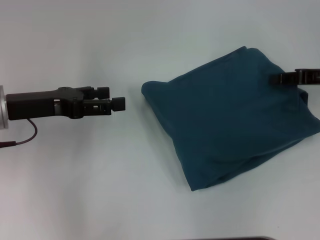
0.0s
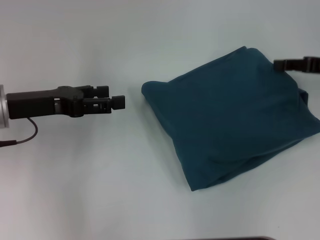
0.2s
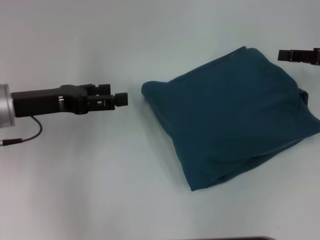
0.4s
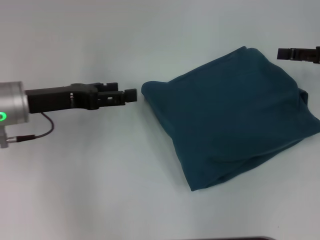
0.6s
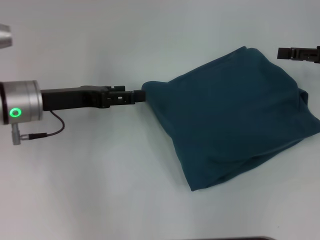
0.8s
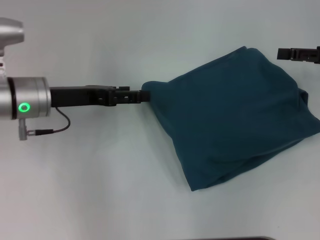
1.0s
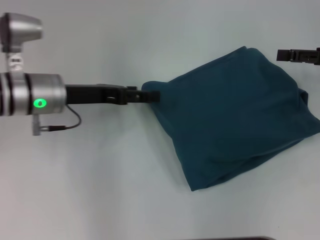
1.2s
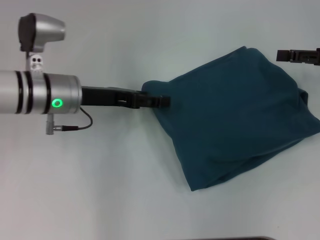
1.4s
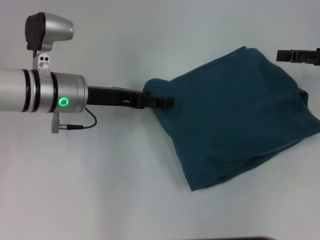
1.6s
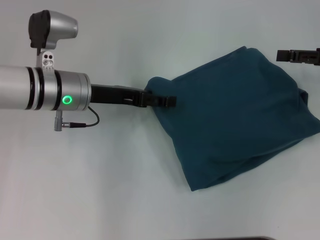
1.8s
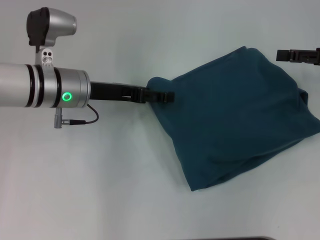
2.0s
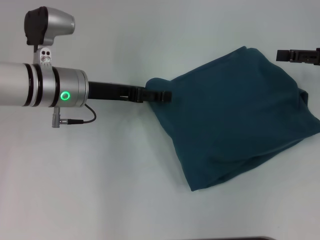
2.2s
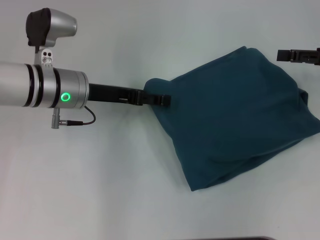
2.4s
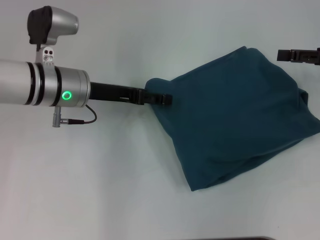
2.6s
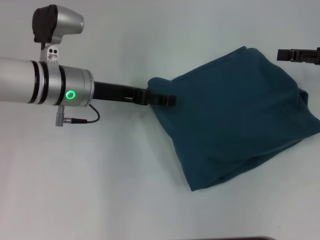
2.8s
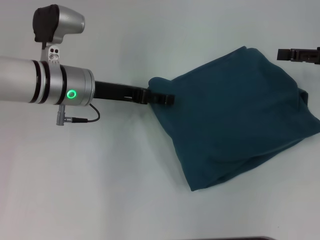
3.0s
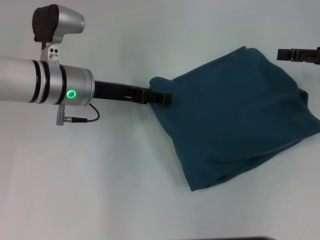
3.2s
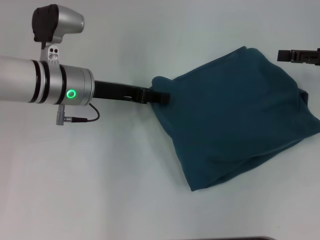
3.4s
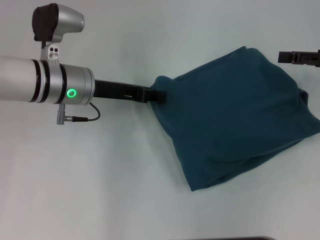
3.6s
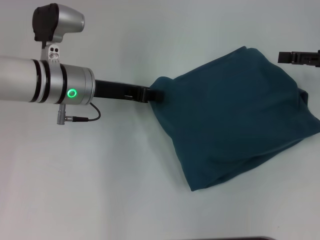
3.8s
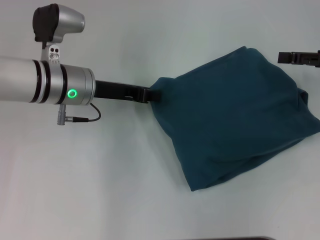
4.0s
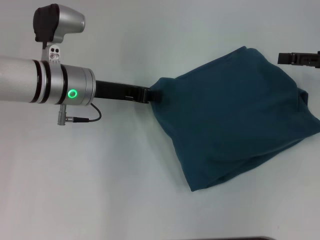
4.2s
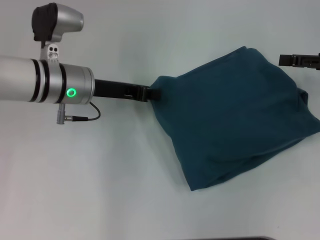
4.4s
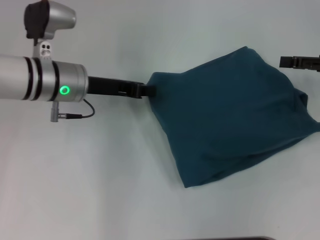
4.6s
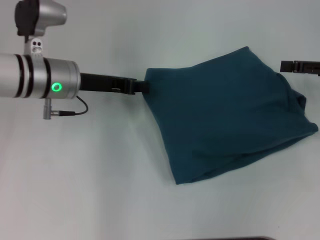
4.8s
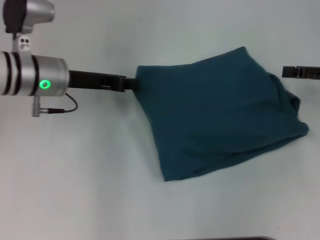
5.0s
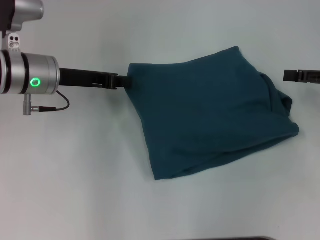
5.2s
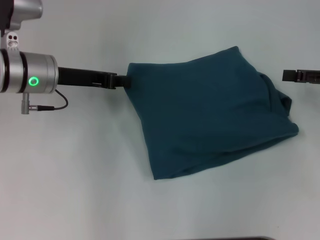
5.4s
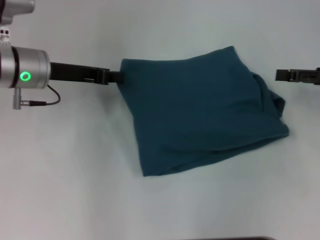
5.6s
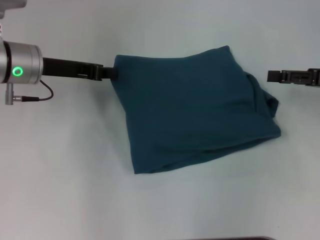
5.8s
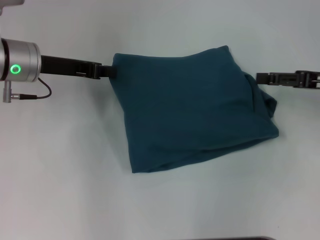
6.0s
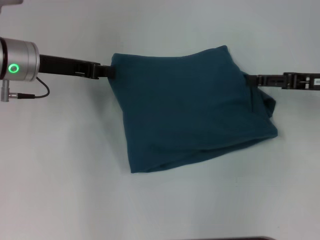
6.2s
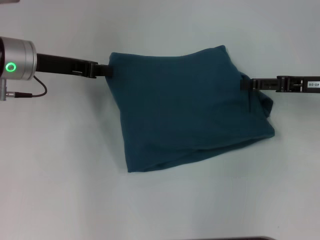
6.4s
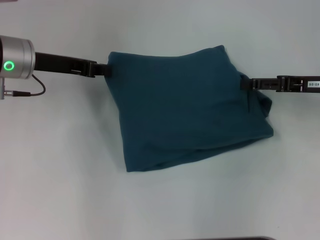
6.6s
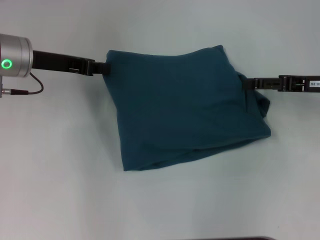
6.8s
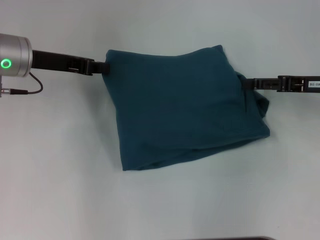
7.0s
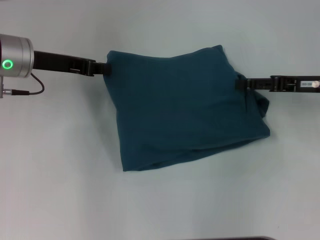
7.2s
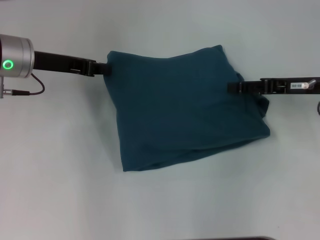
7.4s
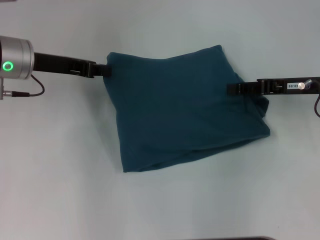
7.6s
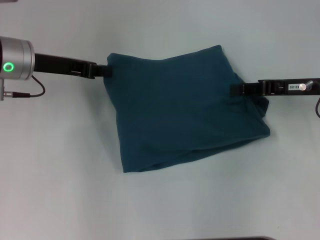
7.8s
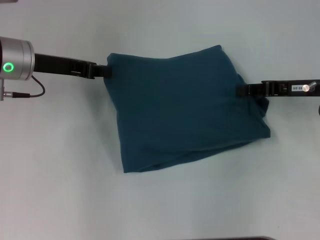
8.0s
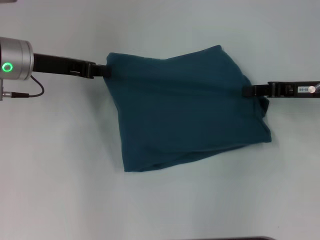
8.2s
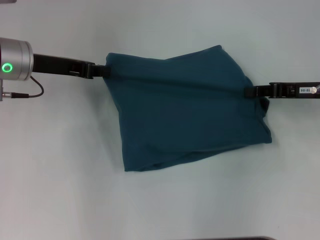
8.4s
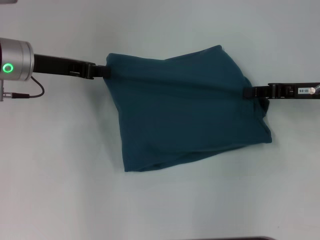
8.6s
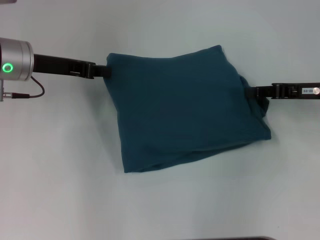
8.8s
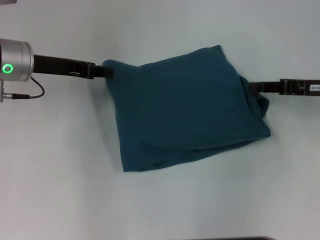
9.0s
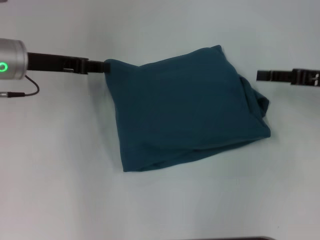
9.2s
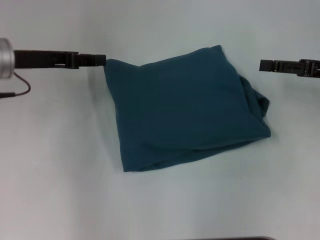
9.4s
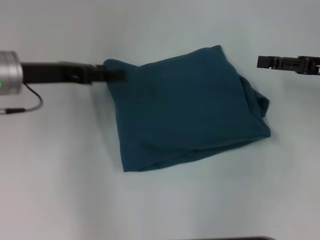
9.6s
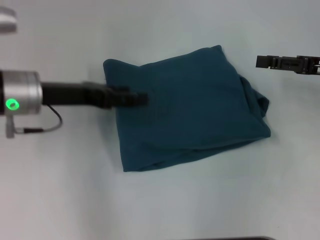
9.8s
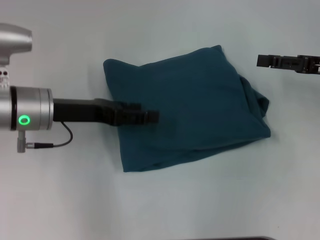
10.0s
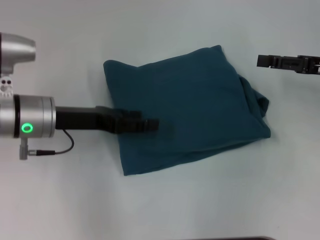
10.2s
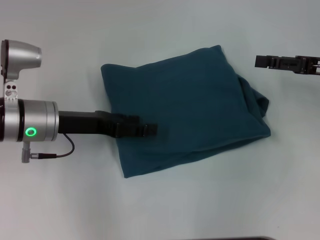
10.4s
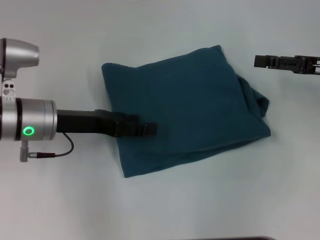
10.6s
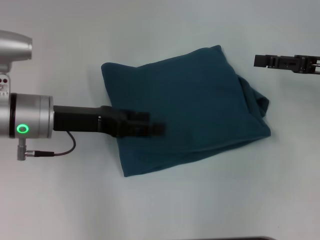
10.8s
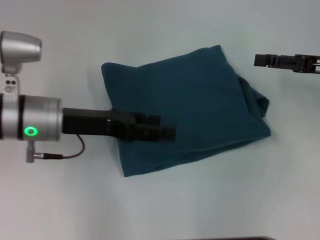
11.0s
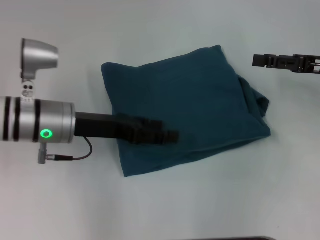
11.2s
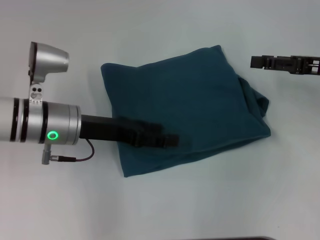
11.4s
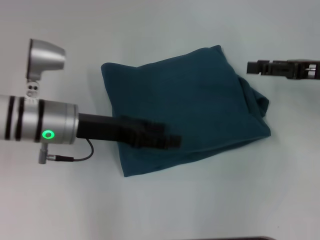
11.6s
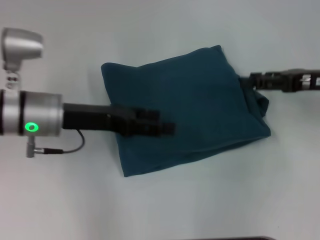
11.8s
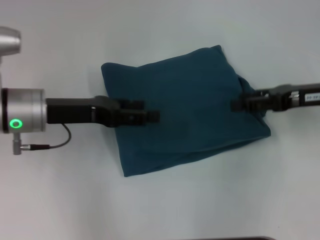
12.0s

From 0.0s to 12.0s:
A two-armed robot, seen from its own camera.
From 0.0s to 1.6s: The left gripper shifts approximately 10 cm to the right; the right gripper opens up.
From 1.6s to 3.0s: The grippers move only a little.
From 3.0s to 4.4s: The left gripper closes.
From 4.4s to 6.0s: The left gripper heads to the left, covering about 5 cm.
From 6.0s to 7.6s: The right gripper moves approximately 5 cm.
From 7.6s to 9.0s: The right gripper closes its fingers.
From 9.0s to 10.4s: The left gripper is displaced backward by roughly 5 cm, and opens, while the right gripper opens.
From 10.4s to 12.0s: The grippers make only small movements.

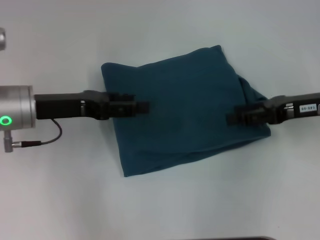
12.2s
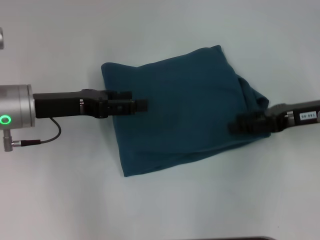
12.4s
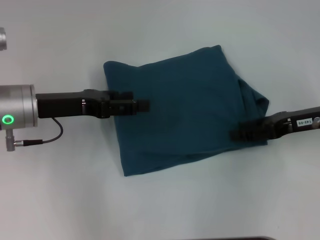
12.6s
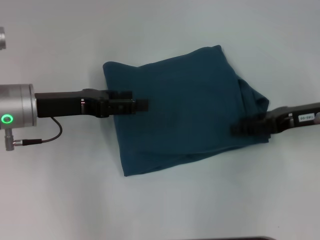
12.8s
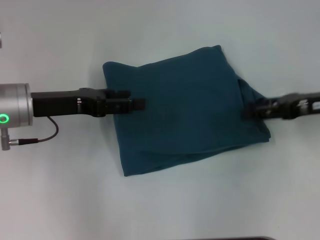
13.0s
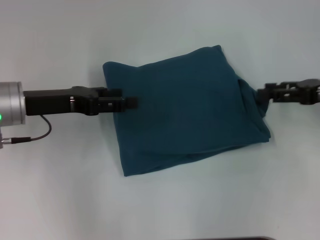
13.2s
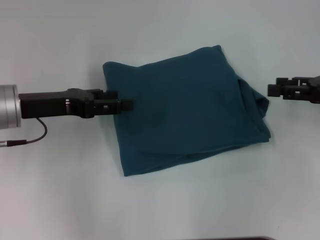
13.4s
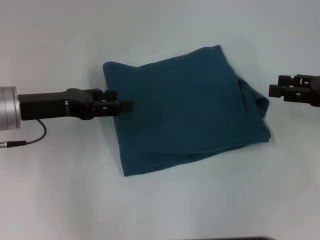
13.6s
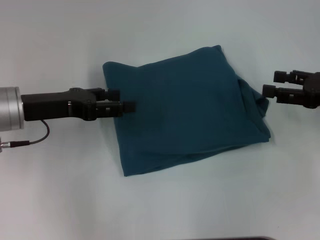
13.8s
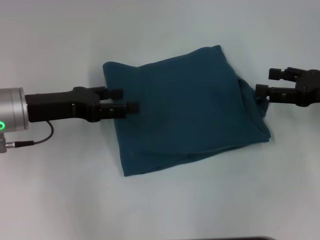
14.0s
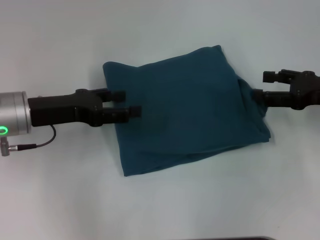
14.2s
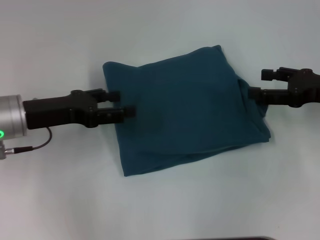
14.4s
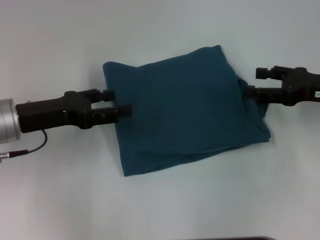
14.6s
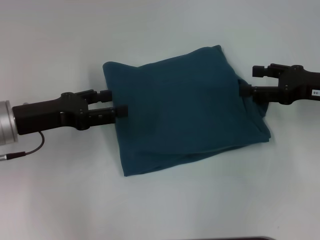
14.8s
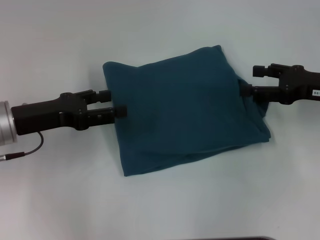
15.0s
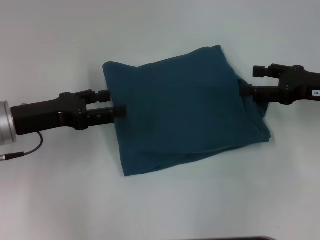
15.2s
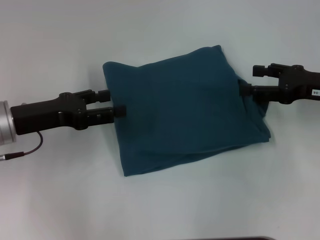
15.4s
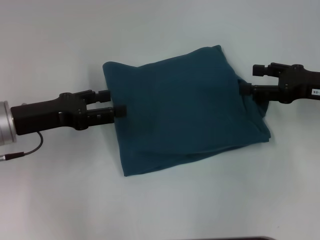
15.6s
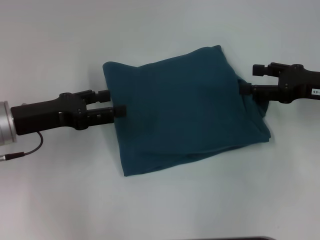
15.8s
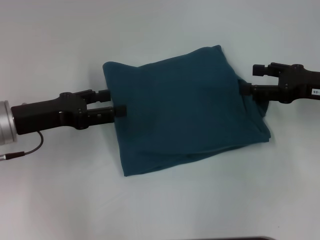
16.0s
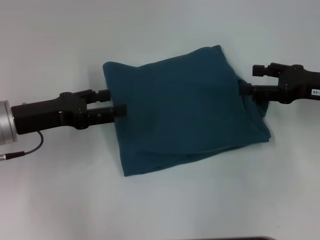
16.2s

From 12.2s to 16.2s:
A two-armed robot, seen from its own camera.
From 12.2s to 13.6s: The right gripper shifts roughly 5 cm to the right.
From 13.6s to 14.8s: The grippers make only small movements.
From 14.8s to 16.2s: Both grippers stay put.

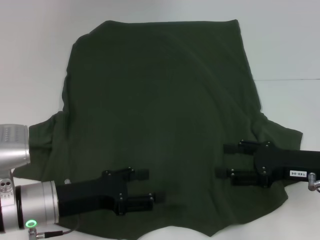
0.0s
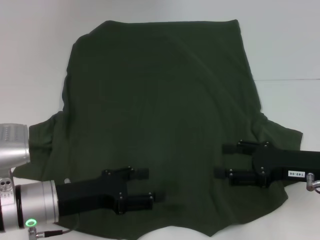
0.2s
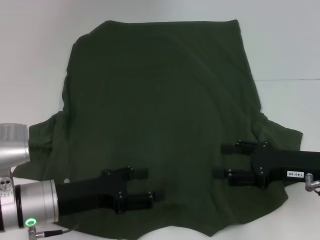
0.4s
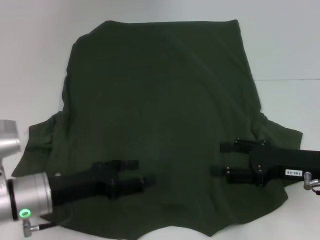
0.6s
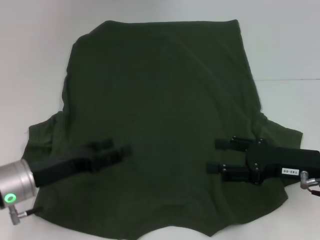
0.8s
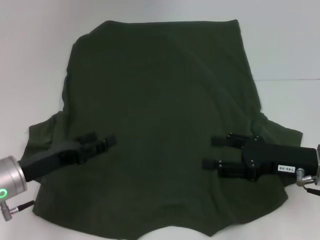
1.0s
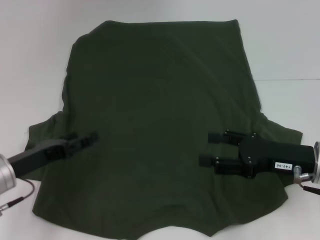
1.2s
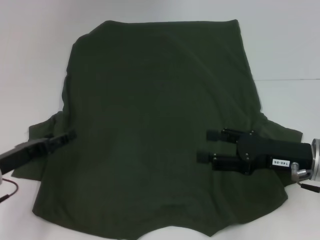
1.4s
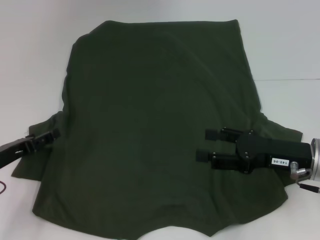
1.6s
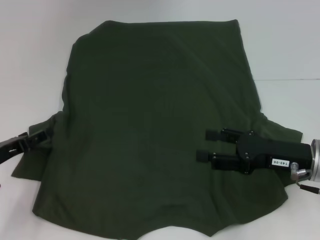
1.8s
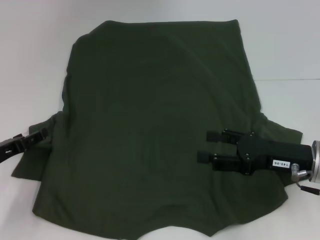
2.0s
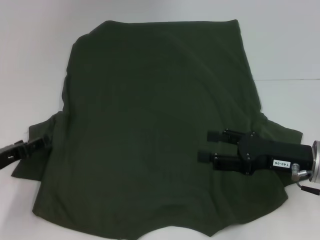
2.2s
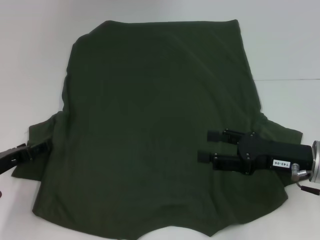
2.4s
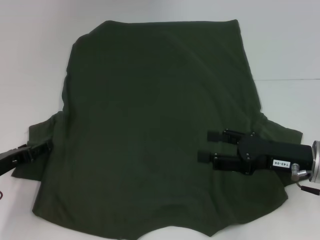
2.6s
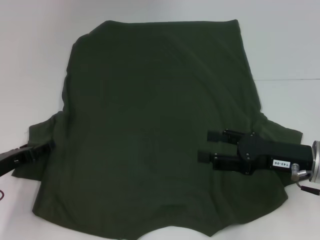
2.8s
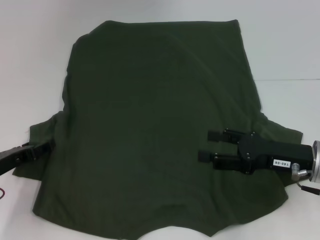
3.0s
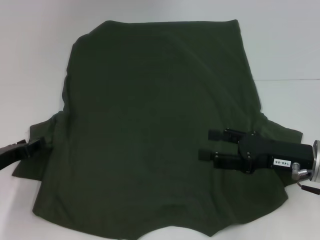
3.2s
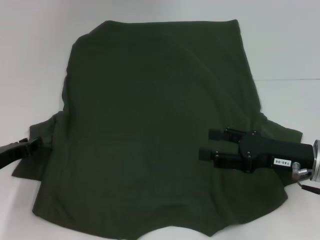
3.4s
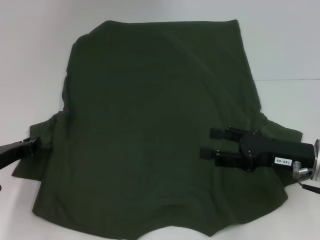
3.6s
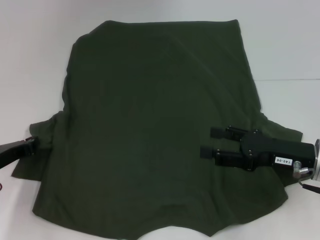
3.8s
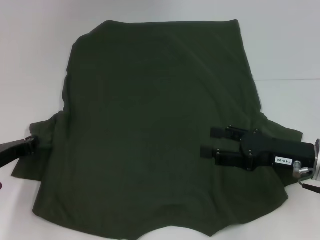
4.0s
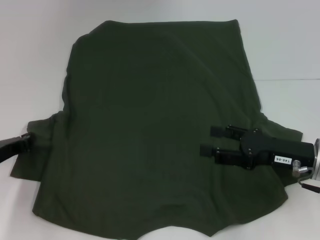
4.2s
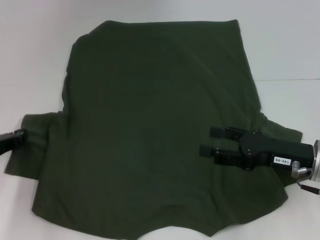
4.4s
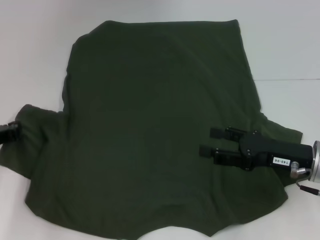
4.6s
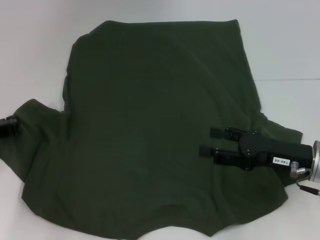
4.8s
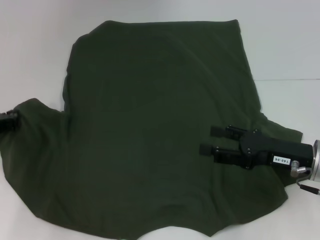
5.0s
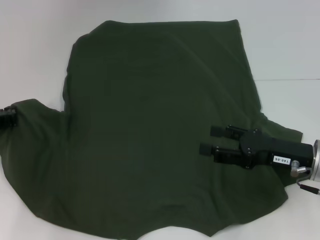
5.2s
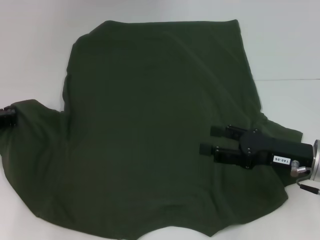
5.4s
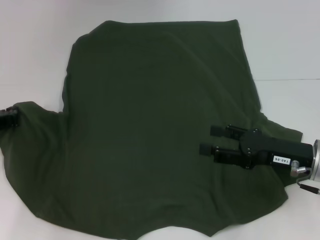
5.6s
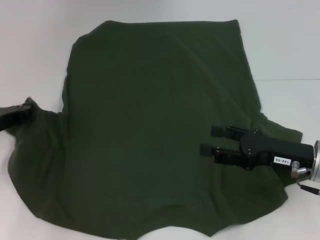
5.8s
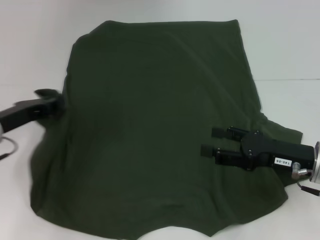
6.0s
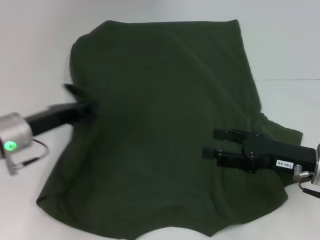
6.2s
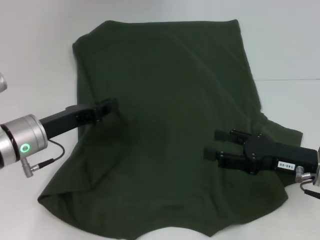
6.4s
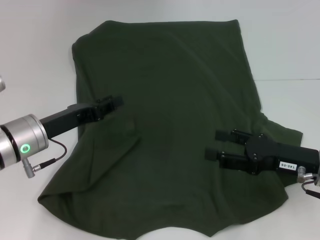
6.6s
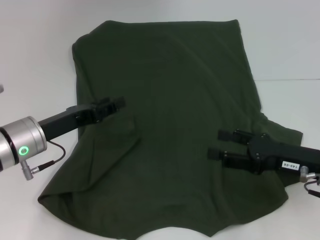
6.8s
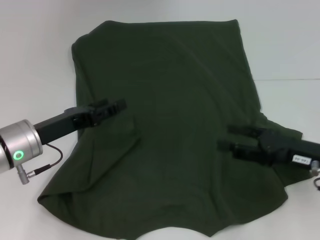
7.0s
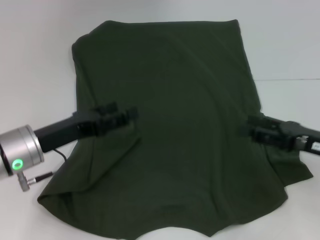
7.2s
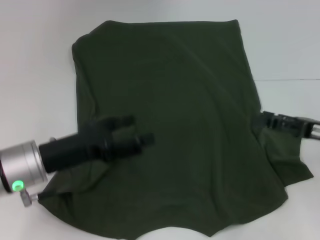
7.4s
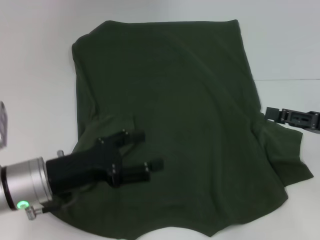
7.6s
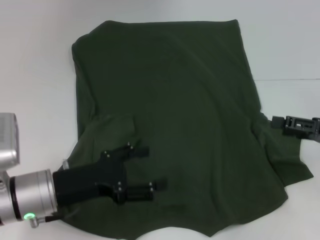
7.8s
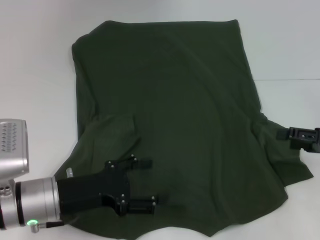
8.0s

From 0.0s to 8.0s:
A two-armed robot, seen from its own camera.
Step, from 0.0s to 8.0s: Fold the bottom left sleeve with your left hand.
From 0.0s to 1.6s: The left gripper moves to the left, roughly 10 cm.
From 1.6s to 3.2s: The grippers make only small movements.
From 3.2s to 4.8s: The left gripper closes.
From 4.8s to 6.4s: The left gripper goes roughly 10 cm to the right.
From 6.4s to 8.0s: The left gripper heads backward, covering approximately 5 cm, and opens up, while the right gripper heads to the right, covering about 10 cm.
